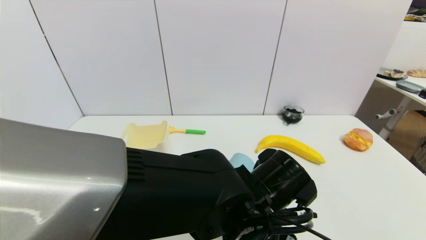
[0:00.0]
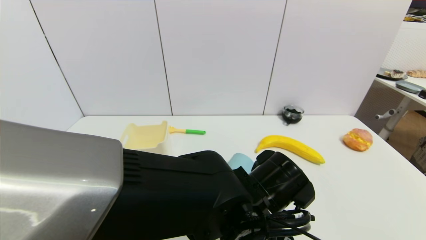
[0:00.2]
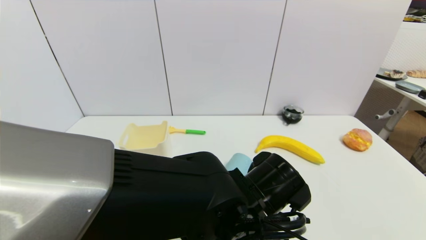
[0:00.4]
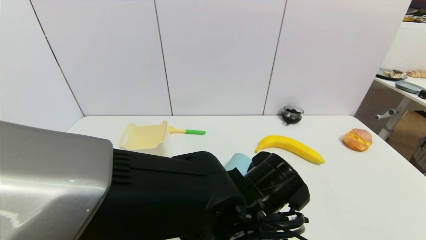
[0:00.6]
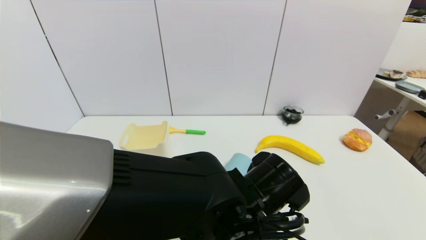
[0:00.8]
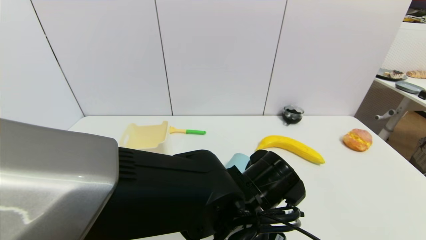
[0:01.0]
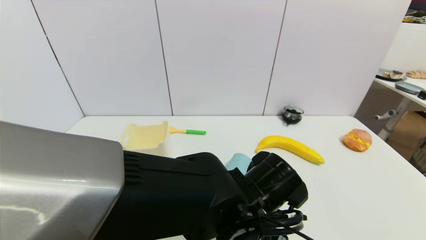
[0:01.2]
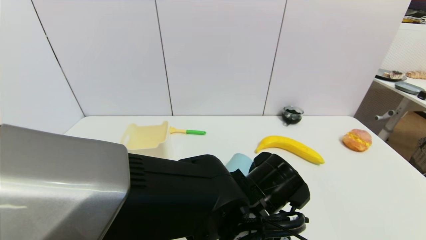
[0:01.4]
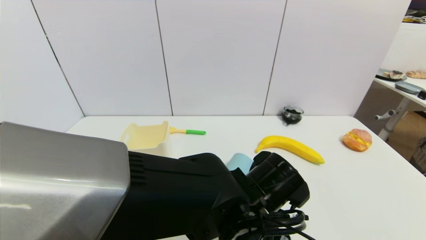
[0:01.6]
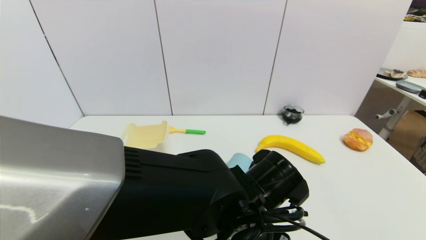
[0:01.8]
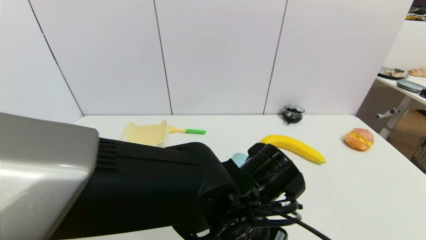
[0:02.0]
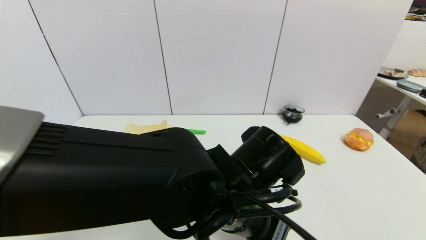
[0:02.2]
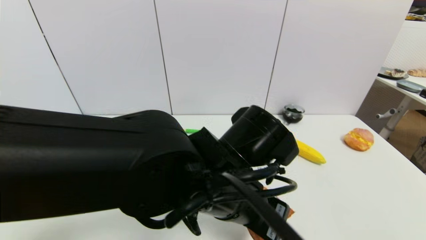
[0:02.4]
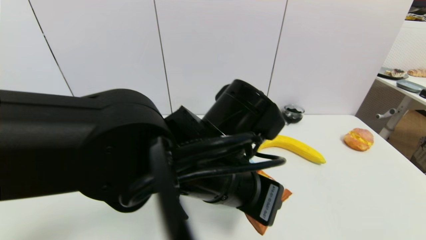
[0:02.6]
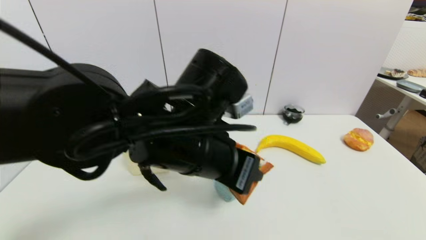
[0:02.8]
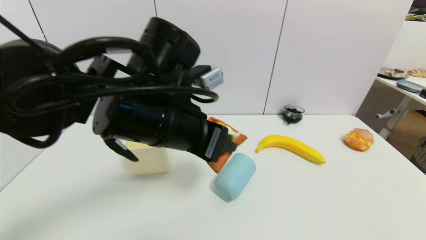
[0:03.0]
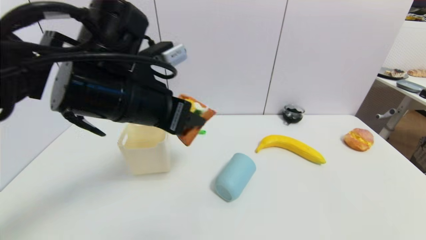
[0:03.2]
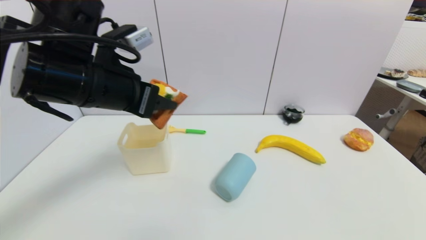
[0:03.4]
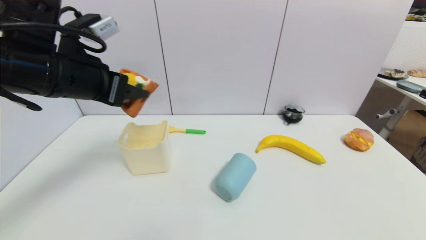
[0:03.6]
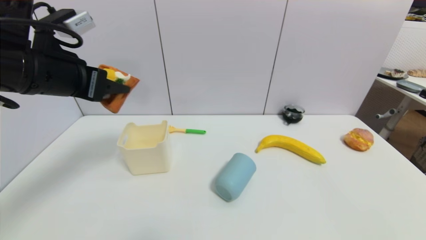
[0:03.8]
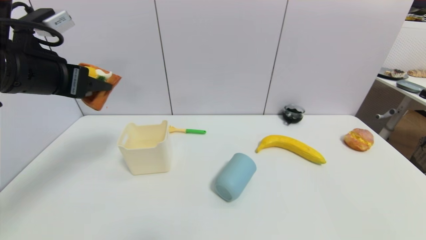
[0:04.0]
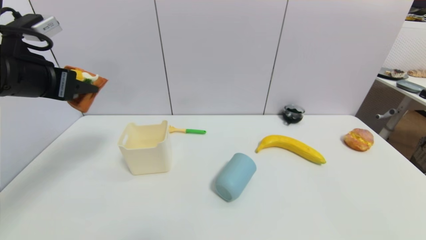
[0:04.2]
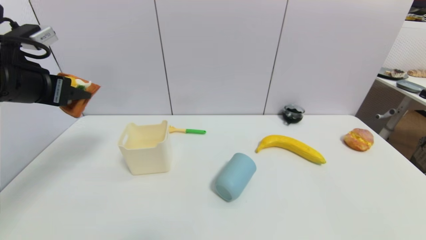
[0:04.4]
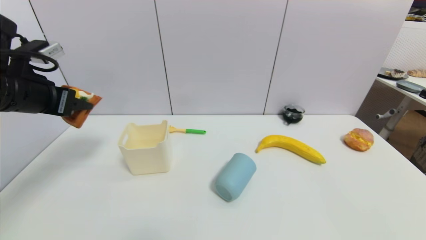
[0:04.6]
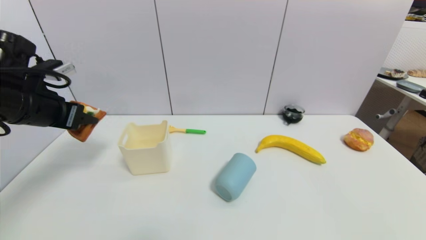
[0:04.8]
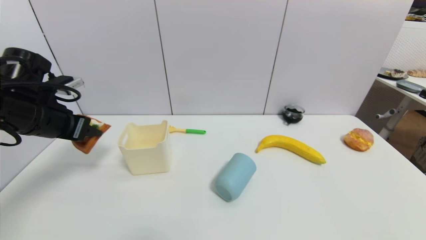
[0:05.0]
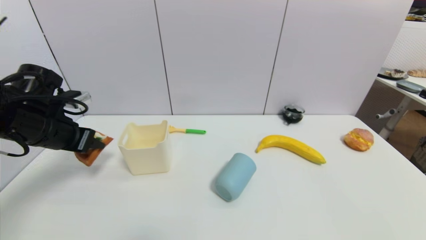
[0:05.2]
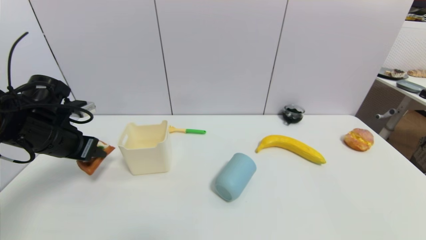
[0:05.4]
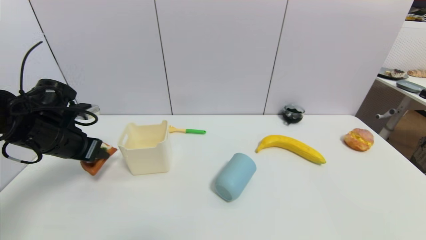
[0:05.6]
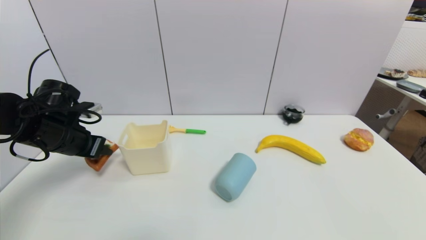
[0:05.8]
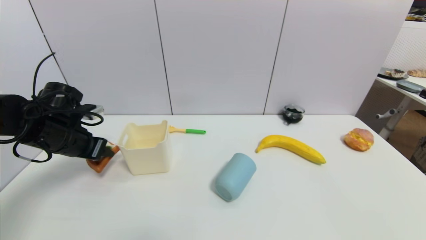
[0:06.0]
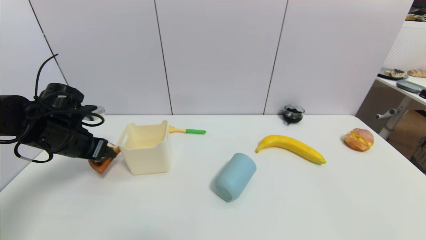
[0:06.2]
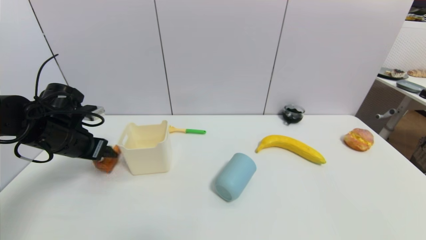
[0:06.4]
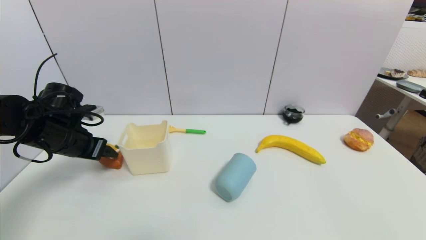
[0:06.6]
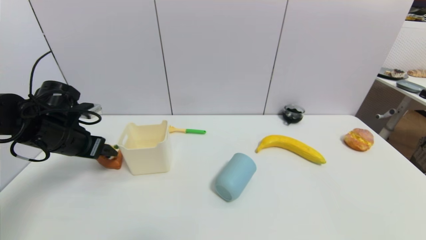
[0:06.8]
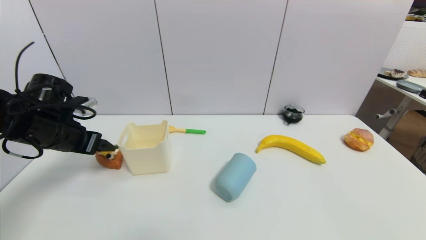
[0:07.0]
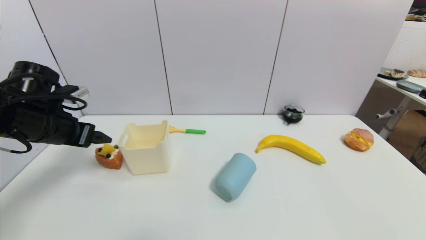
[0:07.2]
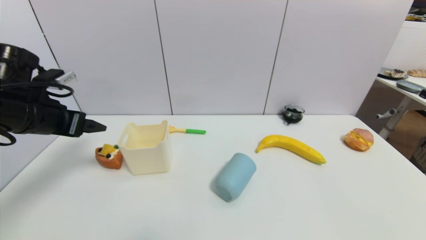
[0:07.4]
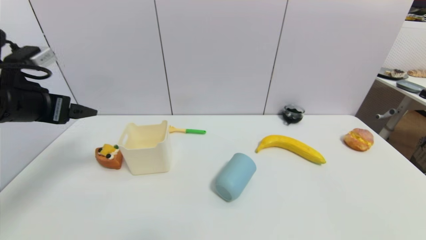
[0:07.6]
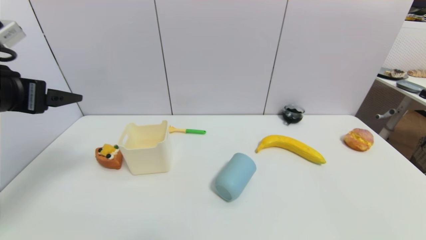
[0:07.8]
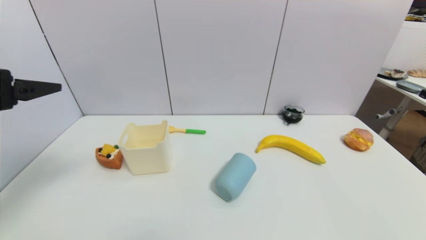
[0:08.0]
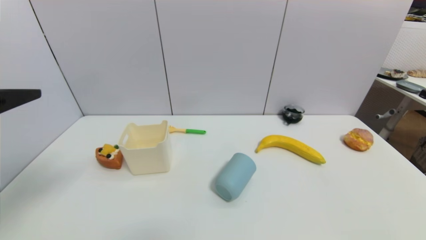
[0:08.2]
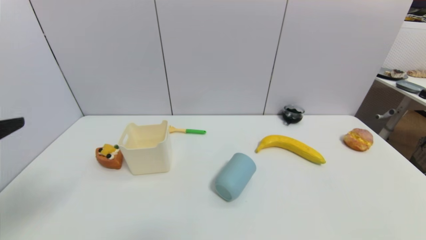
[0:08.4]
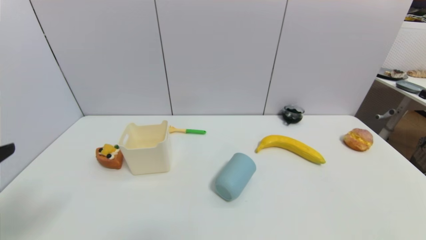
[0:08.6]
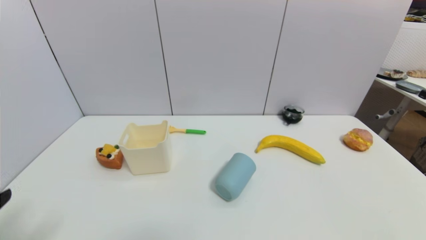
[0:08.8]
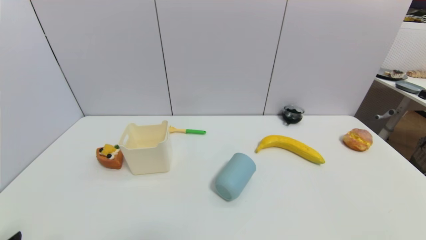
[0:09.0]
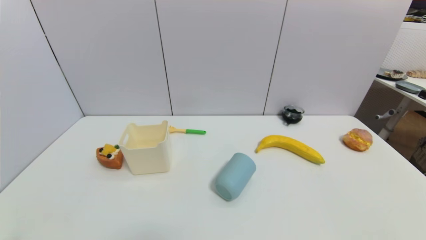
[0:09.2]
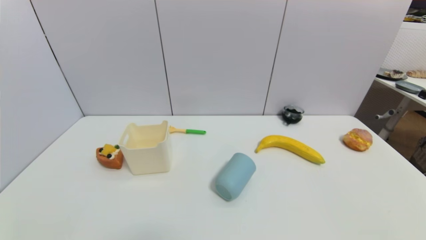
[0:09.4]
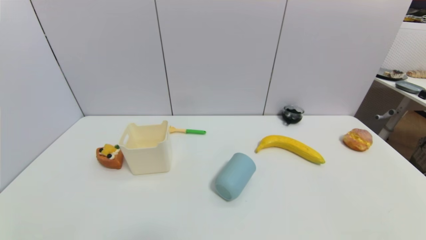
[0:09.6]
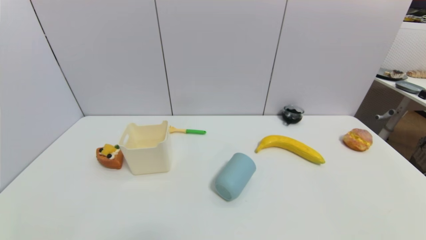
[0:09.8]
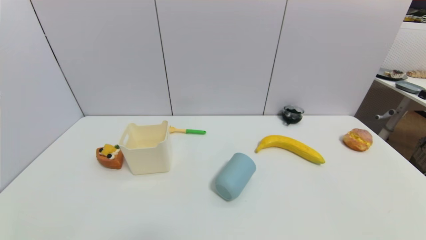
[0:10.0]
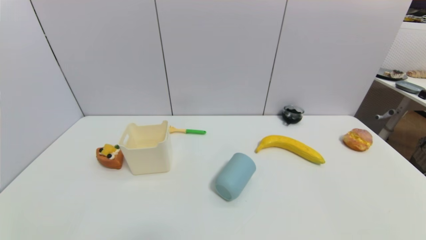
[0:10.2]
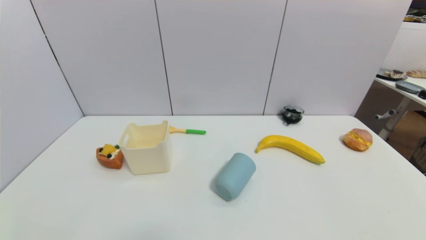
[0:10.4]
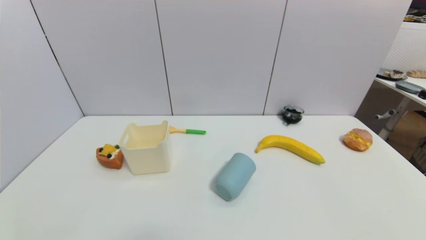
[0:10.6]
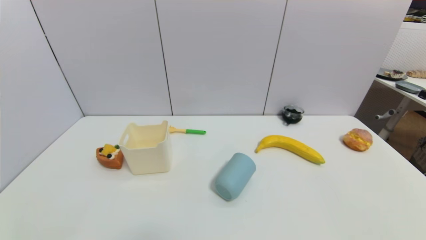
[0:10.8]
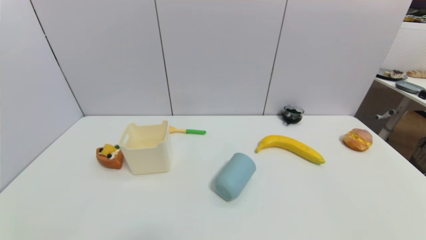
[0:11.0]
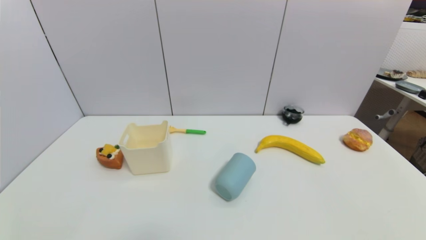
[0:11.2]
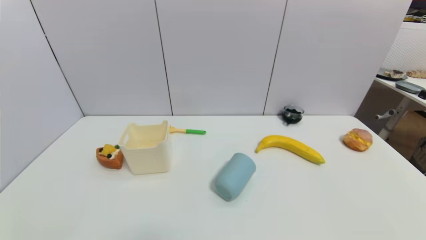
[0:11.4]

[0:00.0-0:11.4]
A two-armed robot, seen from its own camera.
Step, 0:02.2 to 0:06.8: Place the pizza on the table with left gripper.
0:00.0 to 0:01.4: The left gripper closes up.
0:01.4 to 0:02.8: The left gripper travels upward and to the left by about 15 cm.
0:02.8 to 0:04.2: The left gripper goes about 25 cm to the left.
0:04.2 to 0:05.6: The left gripper travels downward by some 15 cm.
0:05.6 to 0:07.2: The left gripper opens up.
0:07.2 to 0:08.6: The left gripper travels backward by roughly 25 cm.
0:08.6 to 0:10.0: The left gripper travels downward by about 20 cm.
0:10.0 to 0:11.4: Neither gripper changes place.
